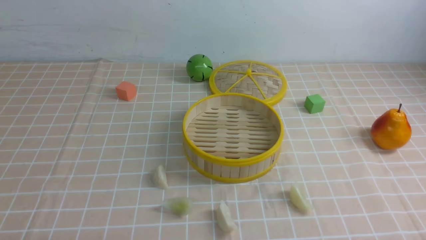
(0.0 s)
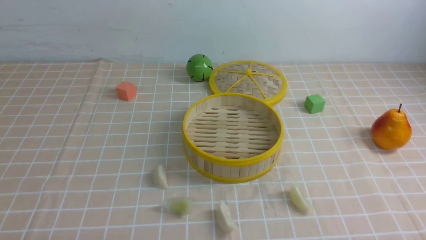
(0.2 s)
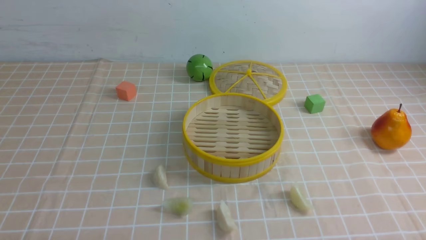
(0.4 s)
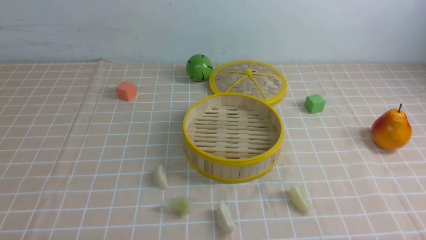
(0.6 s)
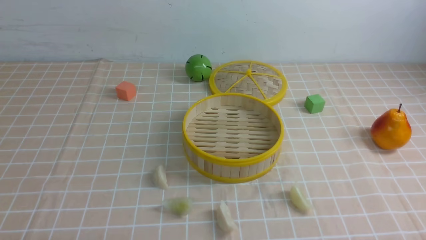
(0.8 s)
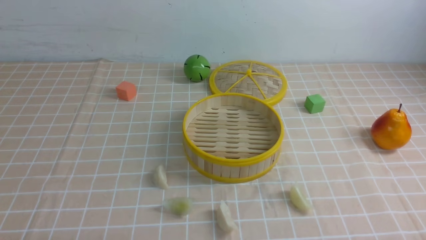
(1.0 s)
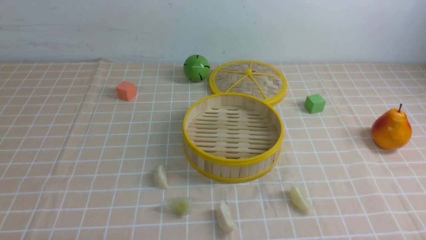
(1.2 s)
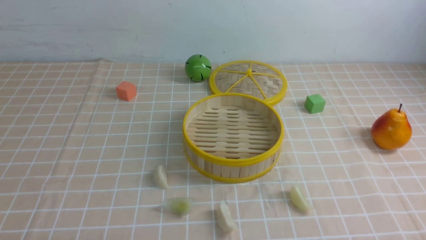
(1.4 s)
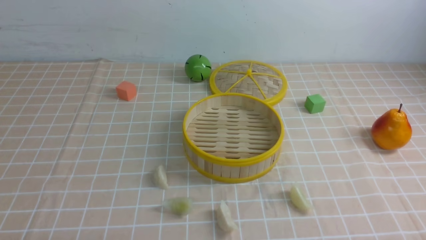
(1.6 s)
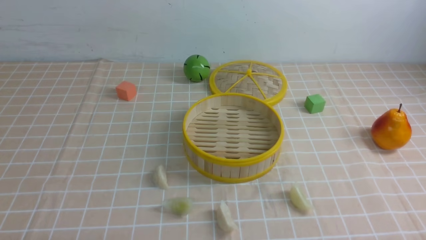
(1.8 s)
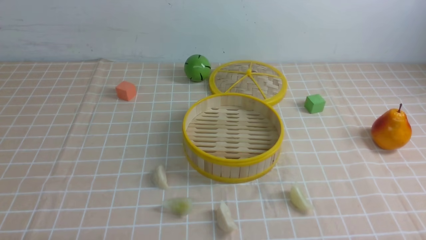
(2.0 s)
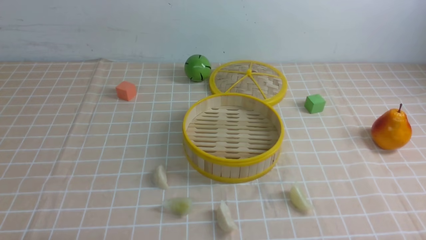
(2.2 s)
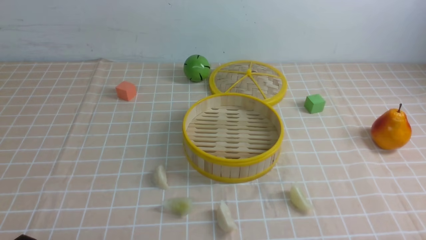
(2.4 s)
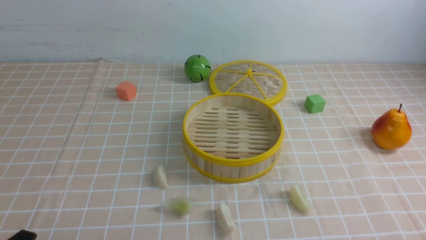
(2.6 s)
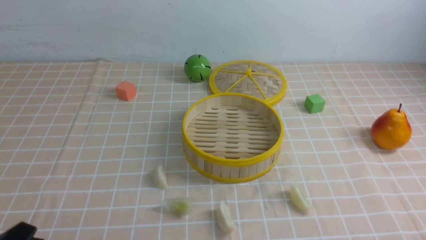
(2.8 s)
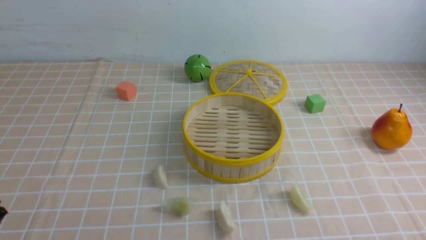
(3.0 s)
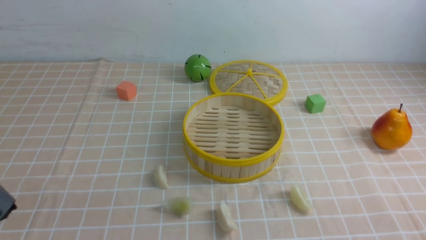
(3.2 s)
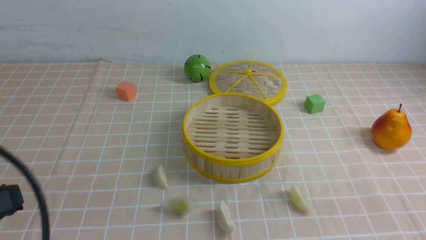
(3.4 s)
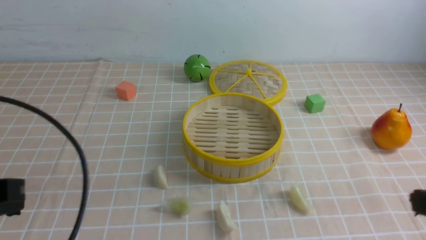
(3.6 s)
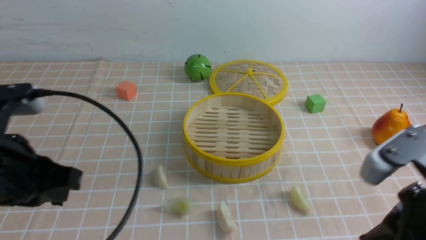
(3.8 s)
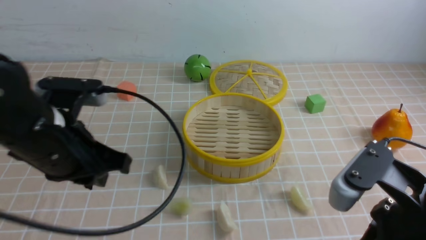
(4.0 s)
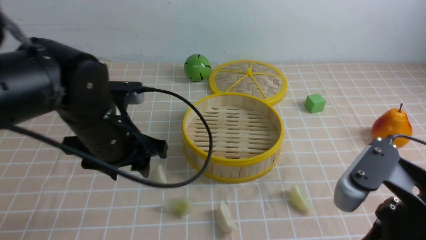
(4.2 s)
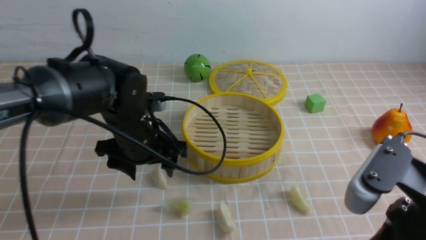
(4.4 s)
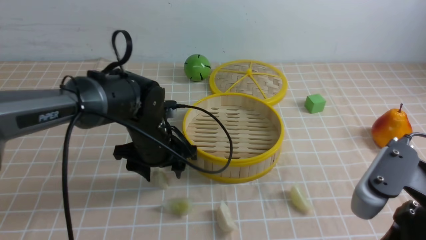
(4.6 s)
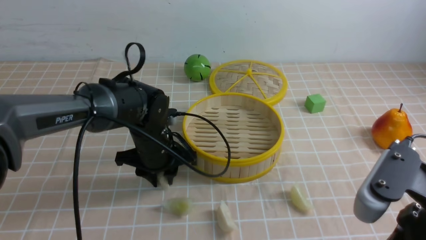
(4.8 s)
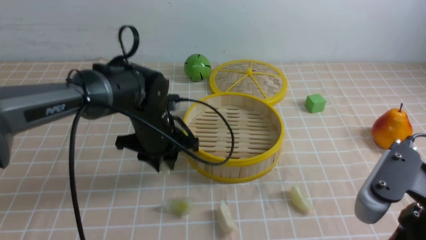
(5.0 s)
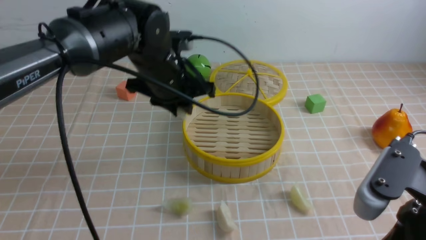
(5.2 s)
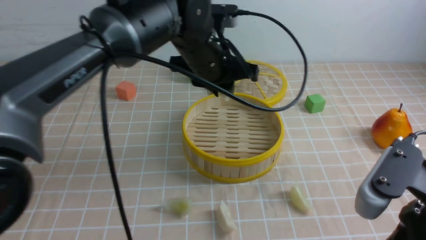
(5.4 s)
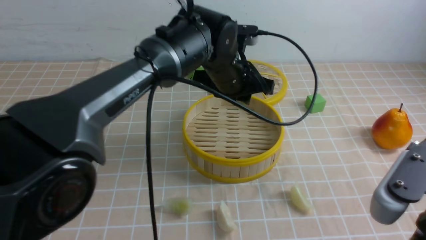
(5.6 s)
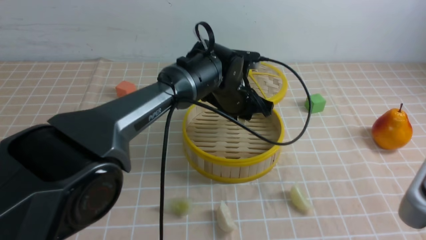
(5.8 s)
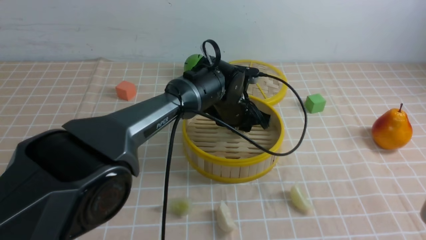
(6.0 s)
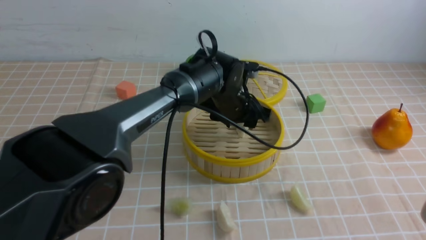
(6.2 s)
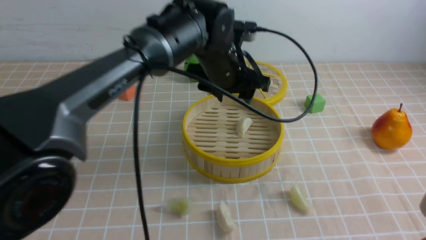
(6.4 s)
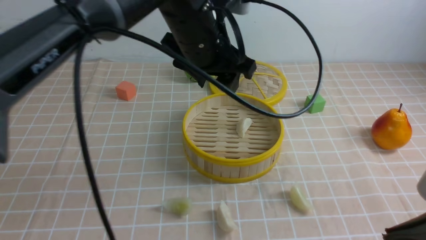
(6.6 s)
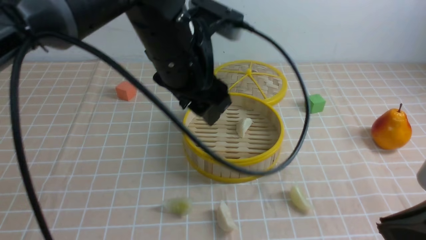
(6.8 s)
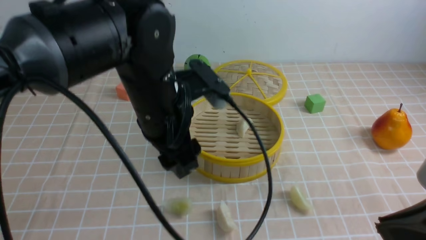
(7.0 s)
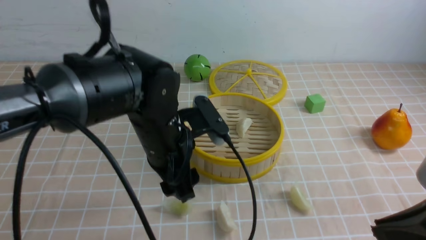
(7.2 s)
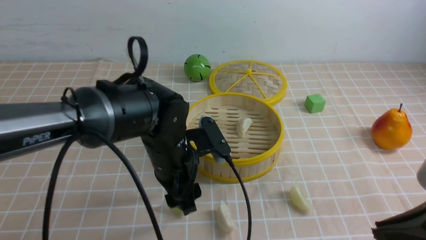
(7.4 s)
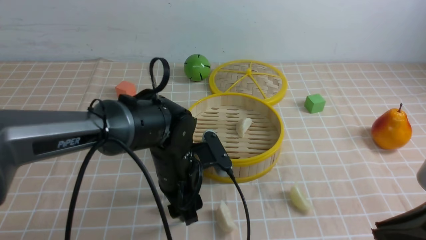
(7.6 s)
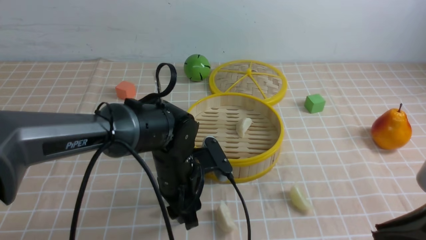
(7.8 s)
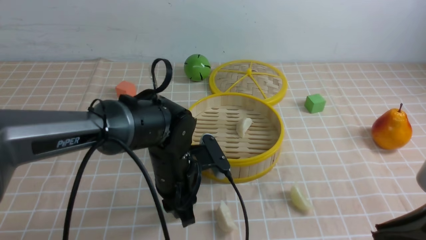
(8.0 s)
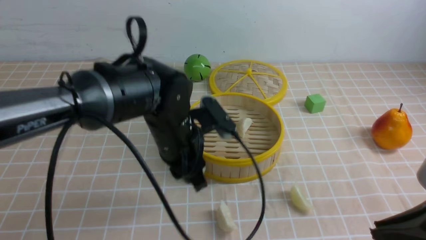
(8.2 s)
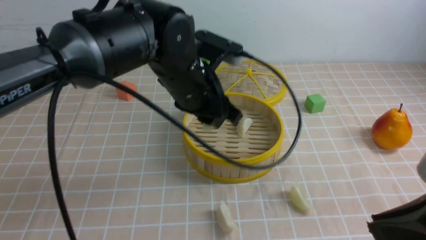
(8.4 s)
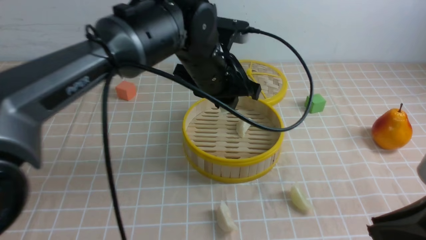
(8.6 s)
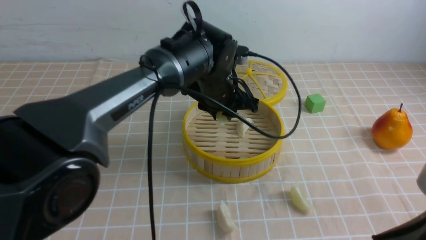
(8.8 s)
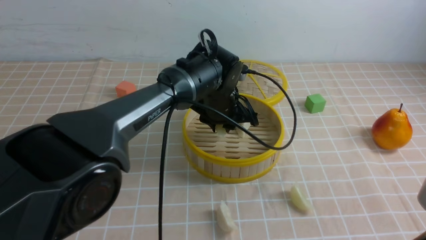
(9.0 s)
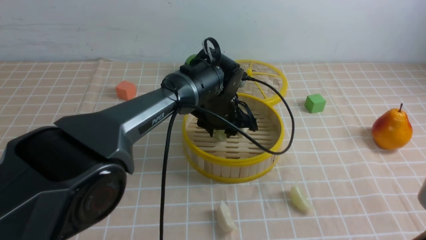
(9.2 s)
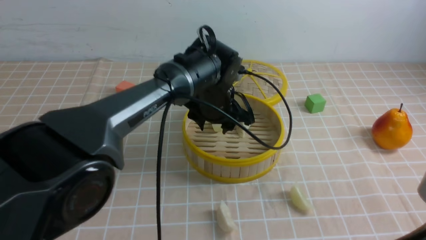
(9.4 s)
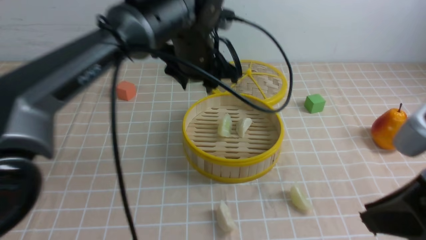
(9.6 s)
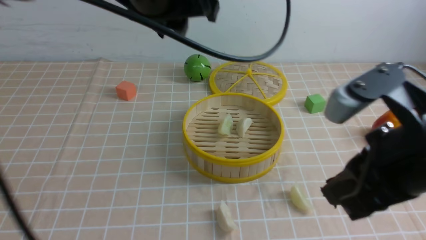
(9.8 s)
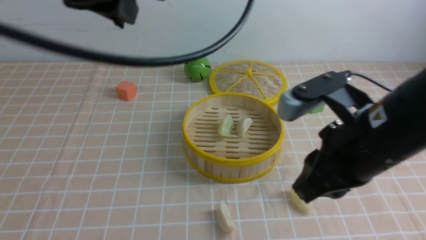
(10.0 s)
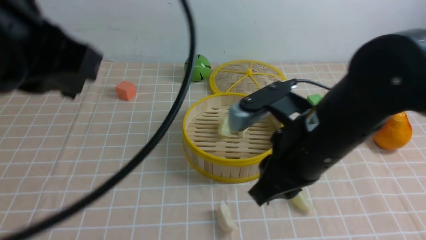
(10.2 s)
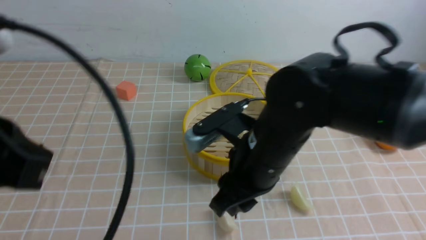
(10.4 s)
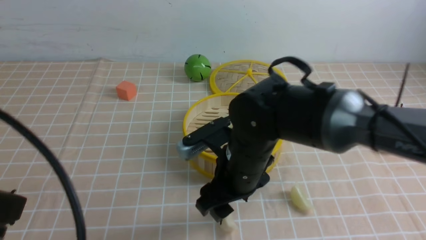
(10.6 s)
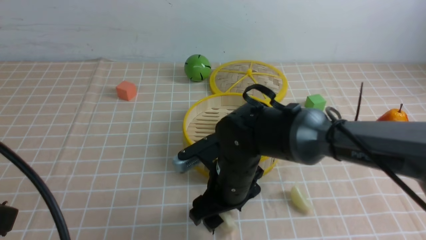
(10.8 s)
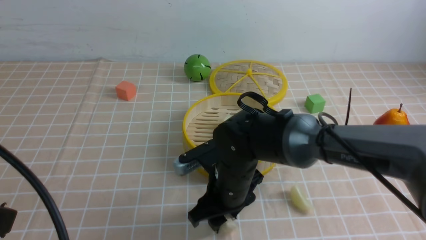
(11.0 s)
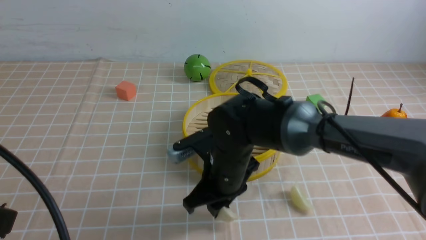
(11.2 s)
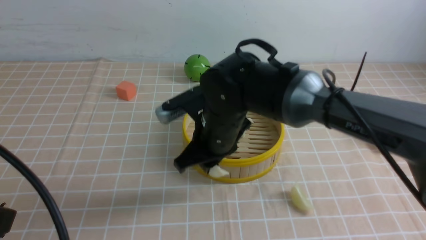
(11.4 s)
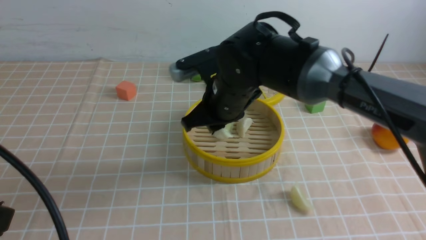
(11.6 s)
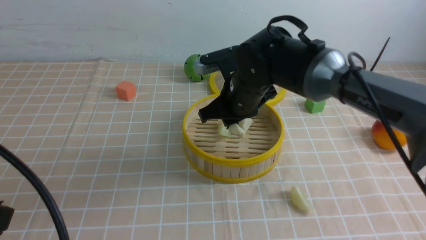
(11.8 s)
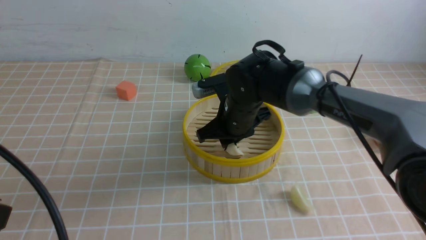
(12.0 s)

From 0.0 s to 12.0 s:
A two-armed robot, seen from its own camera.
Task of the whole recording: put the dumplings into the steamer on the table with the brown tablecloth.
Step, from 0.0 s to 4.6 s: use the left arm to grab a dumpling.
Step, from 5.0 s to 6.2 s: use the left arm to put the dumpling into the steamer.
Step, from 6.4 s to 7.8 s: use the left arm to grab a dumpling.
Step, from 8.0 s to 9.4 s: use the left arm to put the dumpling into the steamer.
Step, from 9.6 s to 11.0 s: use the right arm to grab a dumpling.
From 0.0 s to 1.6 s: Neither gripper changes place.
From 3.0 s to 4.4 s: The left gripper goes roughly 30 cm forward and to the right, and opens up; the right gripper heads upward, to the left and forward, covering about 15 cm, and closes its fingers.
From 4.4 s to 6.0 s: The right gripper shifts by approximately 5 cm. Meanwhile the left gripper is displaced to the right and forward by roughly 20 cm.
From 6.0 s to 7.6 s: The left gripper goes approximately 15 cm backward and to the left, and goes upward and returns, about 15 cm each way.
From 7.6 s to 9.0 s: The left gripper is displaced forward and to the right by approximately 15 cm, and moves approximately 10 cm upward and comes back.
From 9.0 s to 10.4 s: The left gripper heads backward, to the left and upward, covering approximately 40 cm, and closes, while the right gripper is displaced forward, to the left and downward by about 25 cm, and opens its fingers.
From 10.4 s to 12.0 s: The left gripper shifts by roughly 5 cm, while the right gripper heads forward, covering roughly 15 cm.

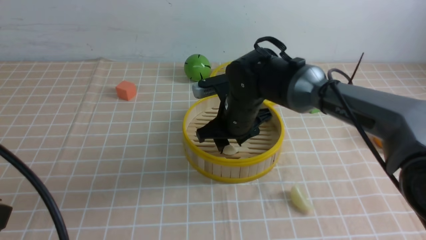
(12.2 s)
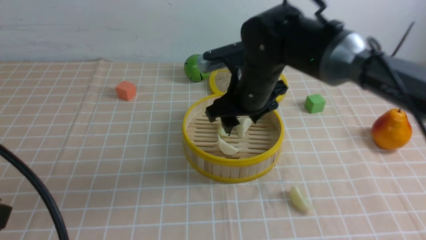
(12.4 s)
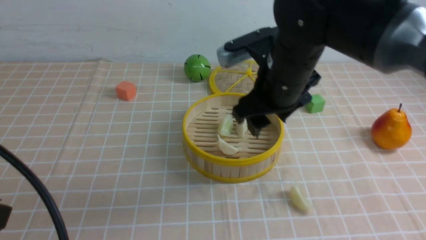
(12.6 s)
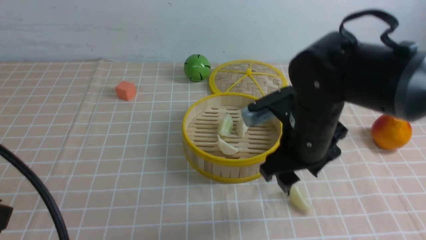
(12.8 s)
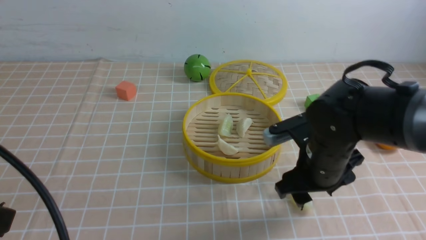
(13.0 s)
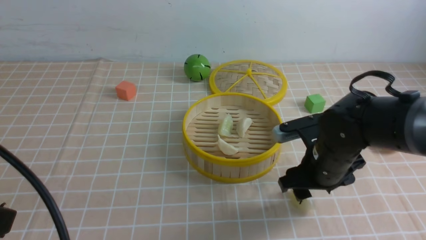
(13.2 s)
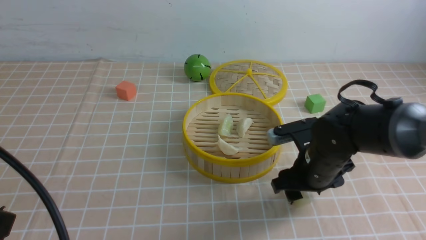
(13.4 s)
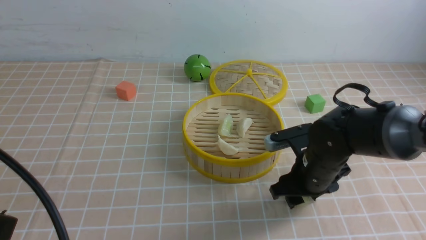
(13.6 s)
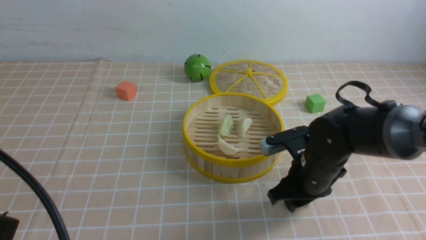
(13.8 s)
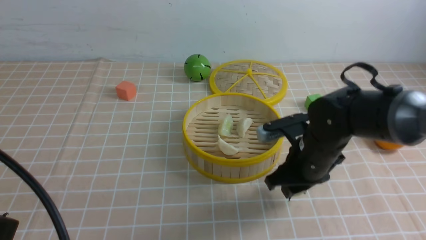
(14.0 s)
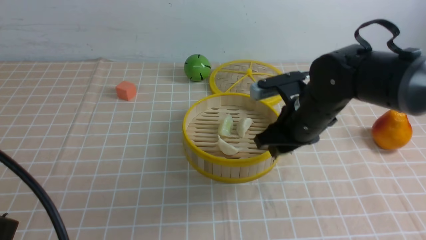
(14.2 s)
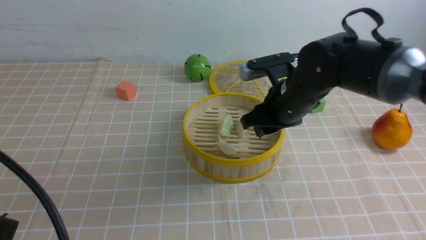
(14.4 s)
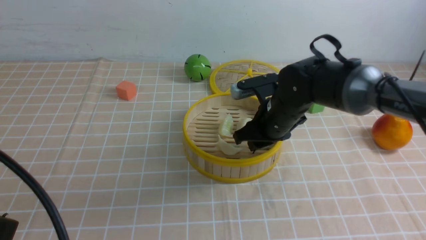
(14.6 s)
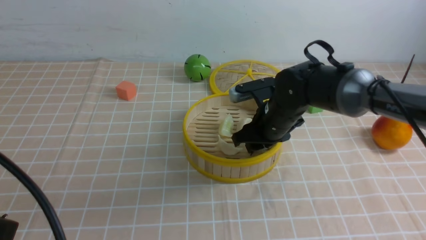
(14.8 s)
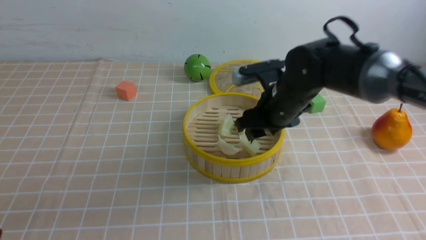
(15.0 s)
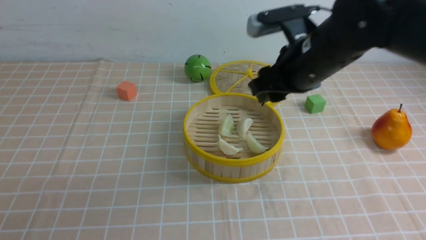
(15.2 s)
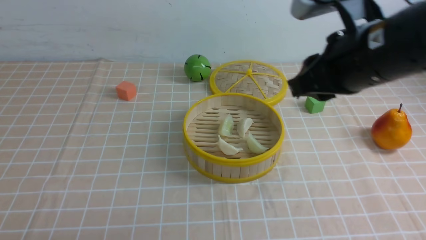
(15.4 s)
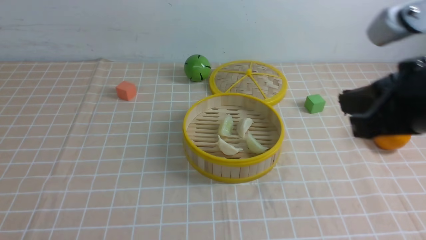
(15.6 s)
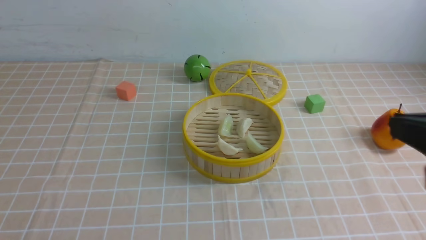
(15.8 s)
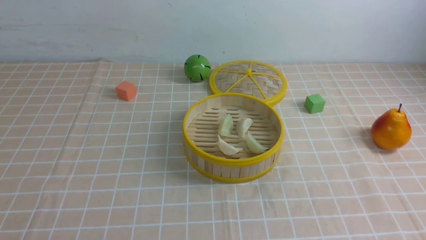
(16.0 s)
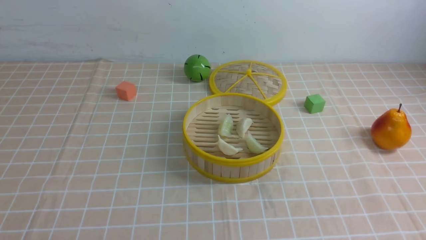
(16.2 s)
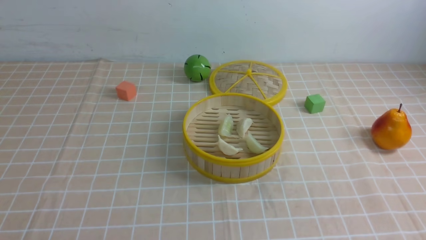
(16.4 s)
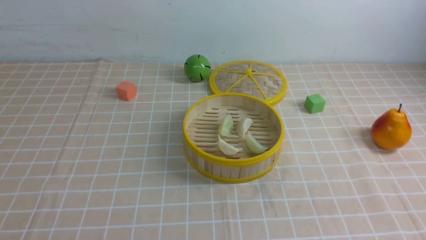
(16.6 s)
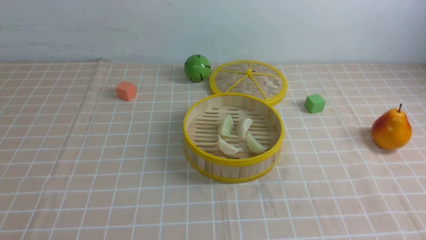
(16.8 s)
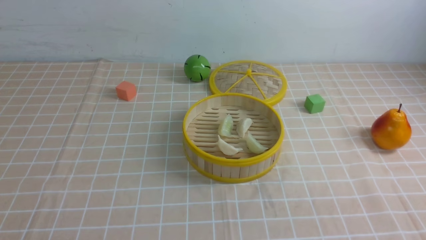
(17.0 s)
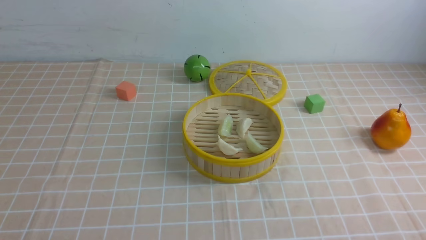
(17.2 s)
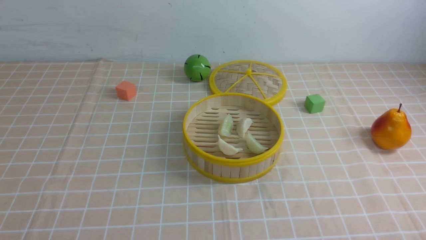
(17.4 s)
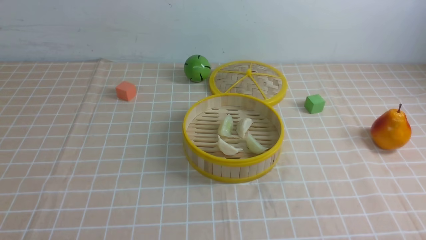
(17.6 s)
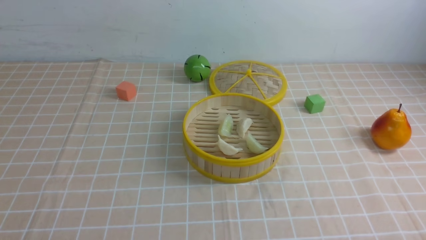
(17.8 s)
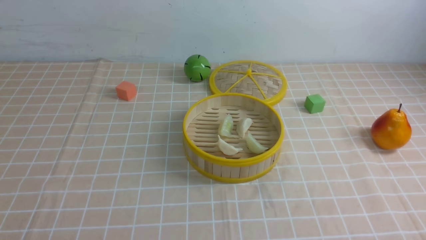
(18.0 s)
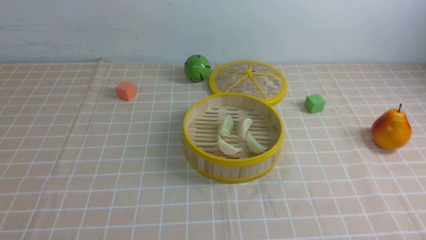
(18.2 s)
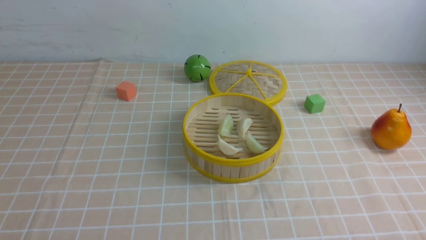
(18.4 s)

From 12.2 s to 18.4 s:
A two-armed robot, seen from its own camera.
Task of the whole recording: put the dumplings into the steamer on the table with the brown tablecloth.
Step, from 12.6 s to 13.6 s: use the right arm to grab a dumpling.
Step, from 13.8 s to 15.0 s: use the right arm to put the dumpling into the steamer.
From 12.2 s to 13.8 s: The right gripper is displaced to the right, downward and backward by about 15 cm.
From 13.8 s to 15.4 s: The left gripper travels backward and downward by some 10 cm. Meanwhile the right gripper goes approximately 20 cm upward.
From 15.4 s to 16.8 s: The right gripper travels backward and to the right by roughly 20 cm, and closes.